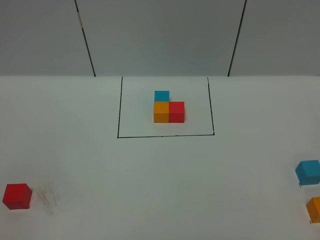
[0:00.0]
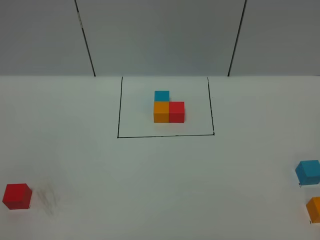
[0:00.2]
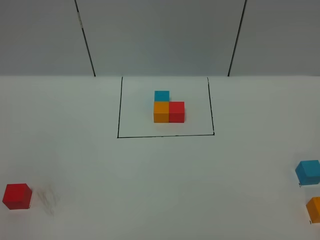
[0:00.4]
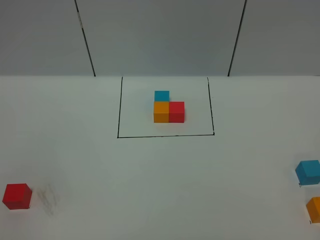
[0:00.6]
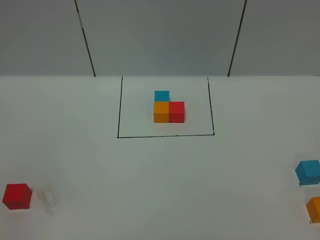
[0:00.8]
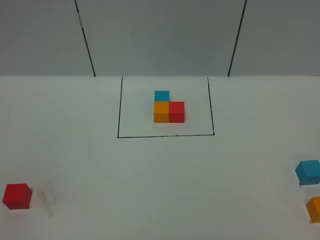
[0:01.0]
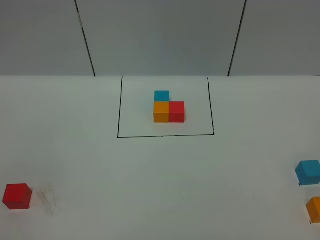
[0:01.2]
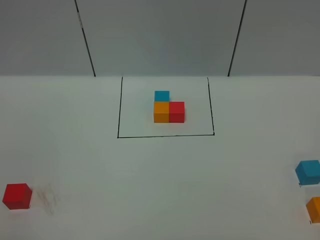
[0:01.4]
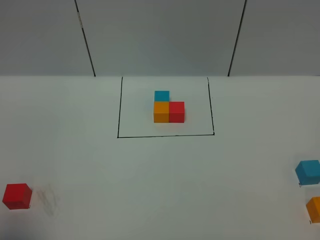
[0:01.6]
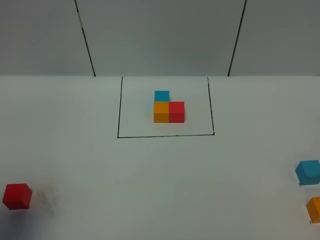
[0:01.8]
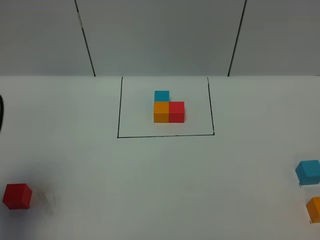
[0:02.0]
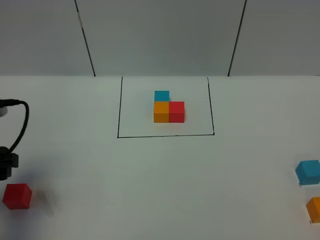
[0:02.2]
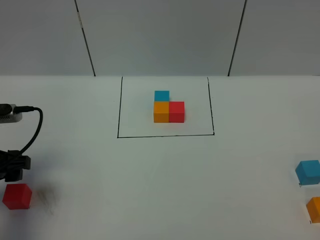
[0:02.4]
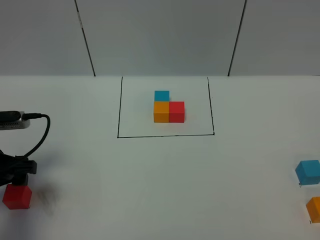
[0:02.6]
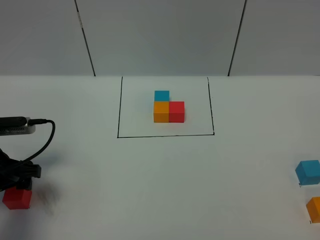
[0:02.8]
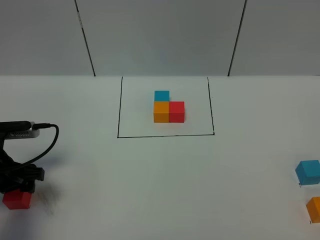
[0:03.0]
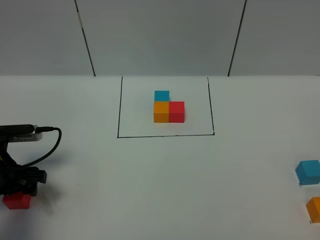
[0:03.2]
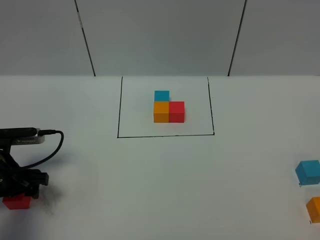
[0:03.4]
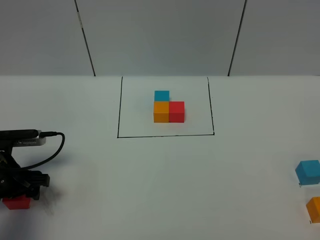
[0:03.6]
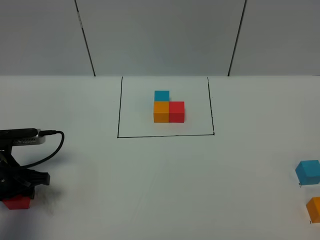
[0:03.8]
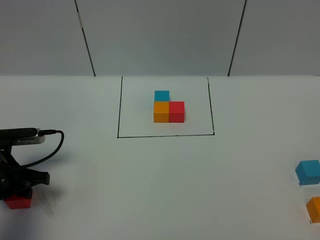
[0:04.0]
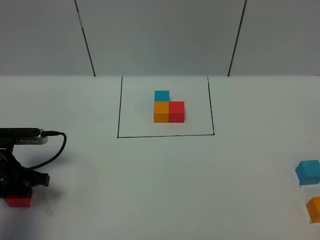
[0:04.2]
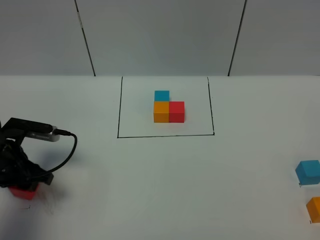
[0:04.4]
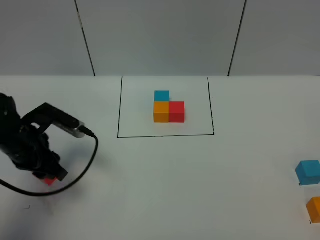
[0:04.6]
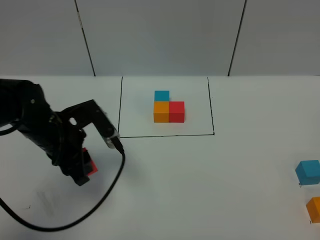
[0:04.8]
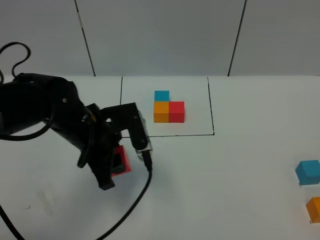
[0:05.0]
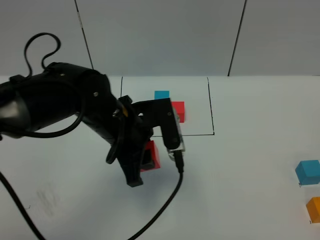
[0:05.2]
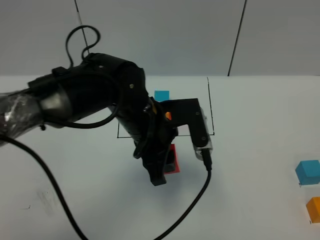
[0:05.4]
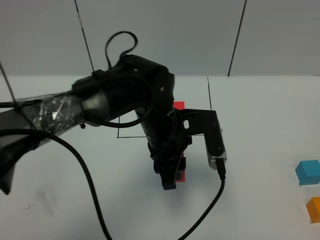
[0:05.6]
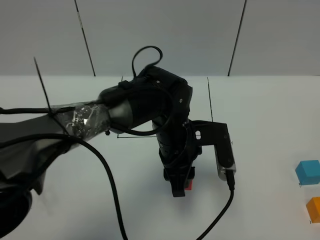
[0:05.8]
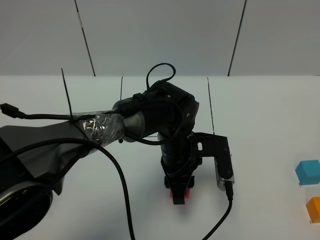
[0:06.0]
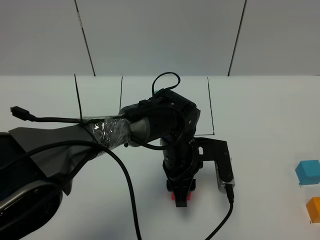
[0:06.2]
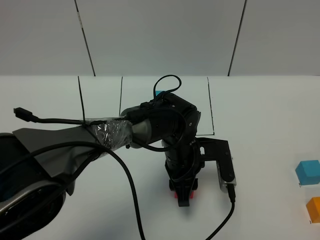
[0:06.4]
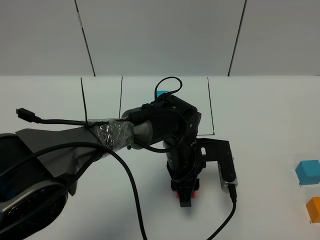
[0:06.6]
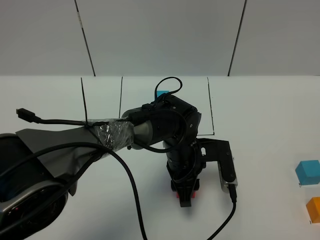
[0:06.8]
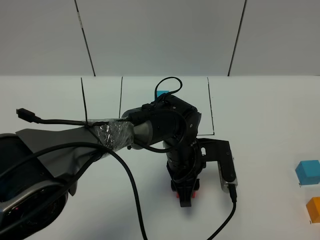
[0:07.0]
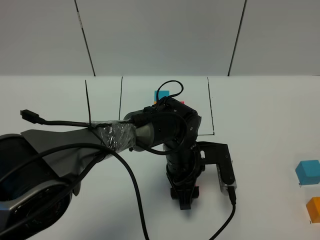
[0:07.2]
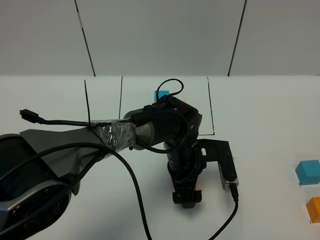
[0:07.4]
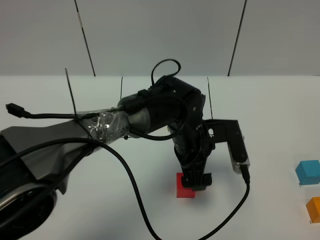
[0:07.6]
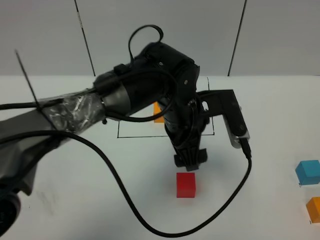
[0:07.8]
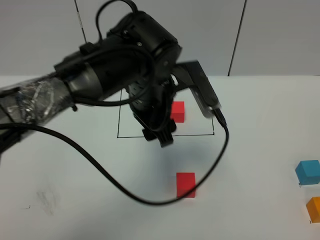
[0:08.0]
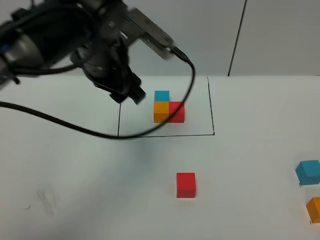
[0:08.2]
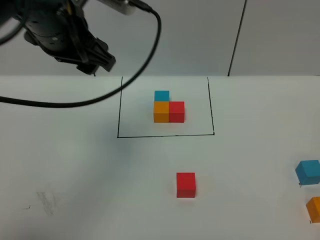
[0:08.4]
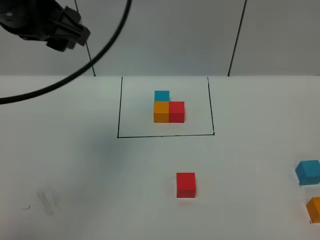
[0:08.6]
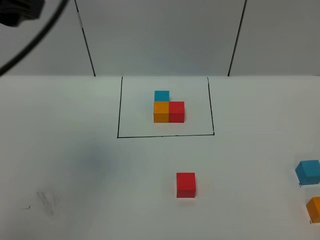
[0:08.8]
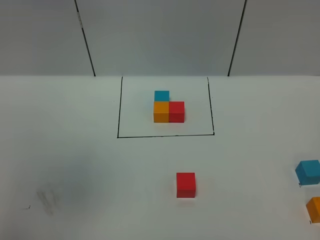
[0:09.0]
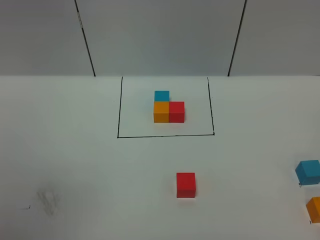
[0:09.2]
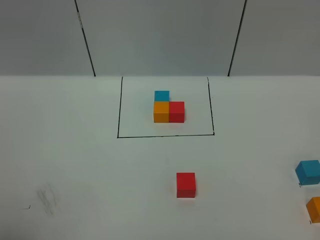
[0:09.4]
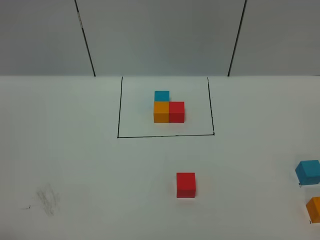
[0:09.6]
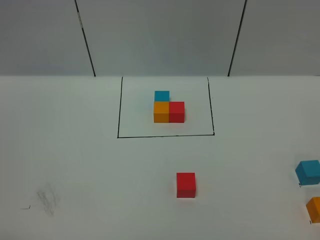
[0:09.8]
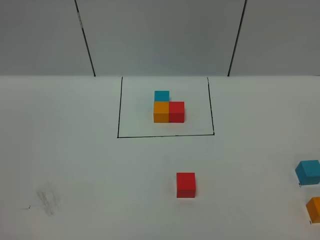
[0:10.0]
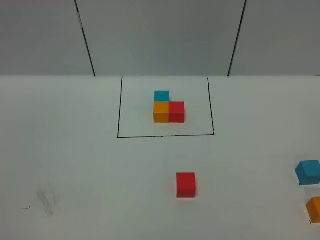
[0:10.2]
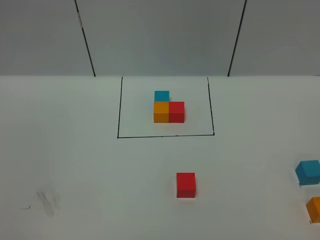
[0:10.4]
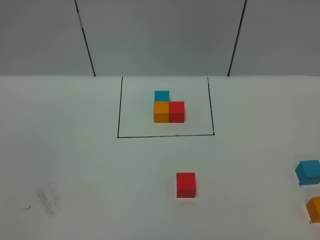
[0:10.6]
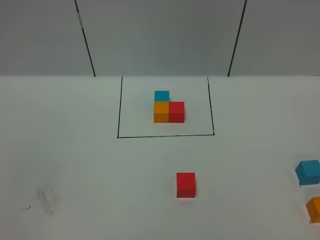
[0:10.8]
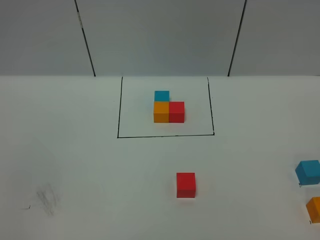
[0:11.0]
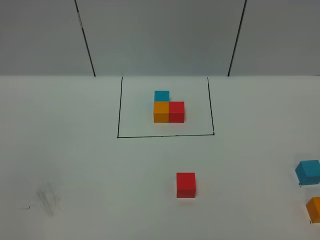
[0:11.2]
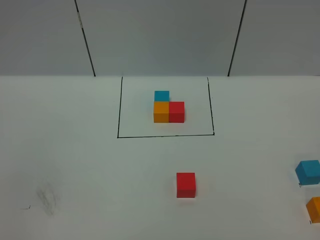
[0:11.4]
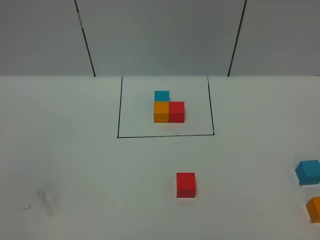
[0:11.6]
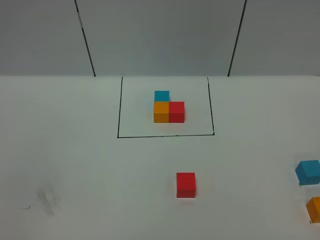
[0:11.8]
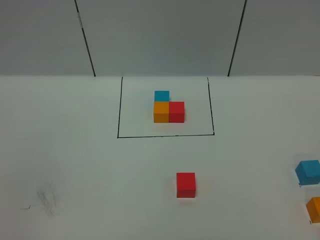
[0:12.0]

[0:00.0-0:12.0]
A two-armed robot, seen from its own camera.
Task of the whole recording: According to the building block template in front, assemble the scattered blocks together.
Step, 0:02.0 to 0:07.8: Put the red cube in the center of the table.
0:01.6 to 0:03.0: The left gripper is displaced forward and downward by roughly 25 cm.
0:03.0 to 0:04.4: The left gripper closes.
0:04.4 to 0:06.0: The left gripper goes approximately 30 cm to the right.
0:06.0 to 0:07.6: The left gripper opens its fingers.
0:07.6 to 0:09.0: The left gripper travels upward, to the left and backward by about 50 cm.
0:09.0 to 0:10.4: The left gripper shifts roughly 30 cm backward and downward.

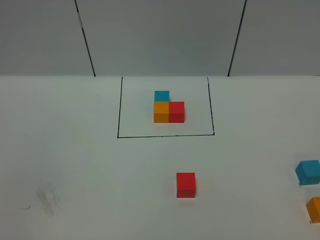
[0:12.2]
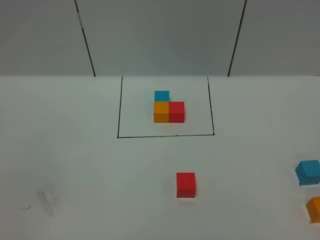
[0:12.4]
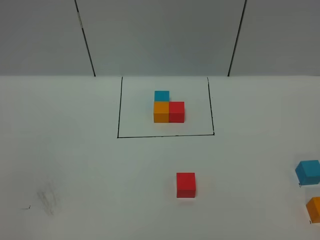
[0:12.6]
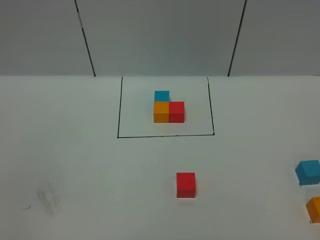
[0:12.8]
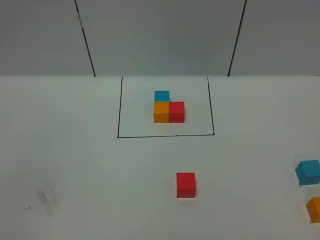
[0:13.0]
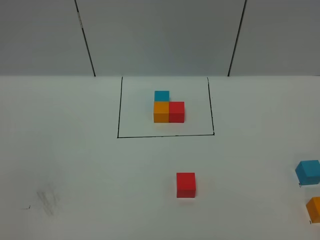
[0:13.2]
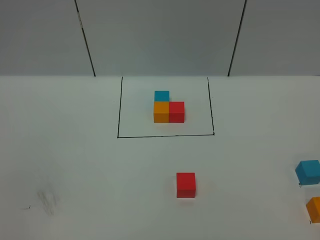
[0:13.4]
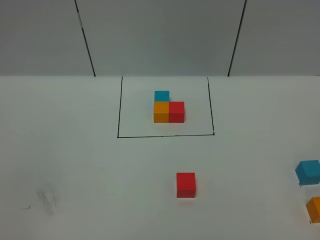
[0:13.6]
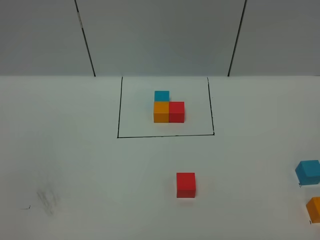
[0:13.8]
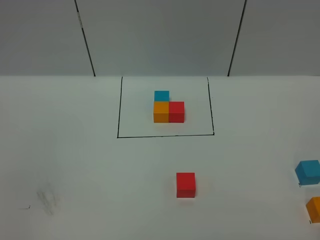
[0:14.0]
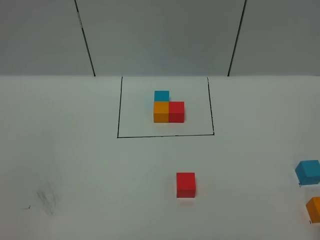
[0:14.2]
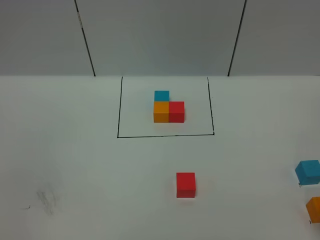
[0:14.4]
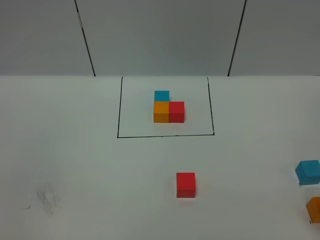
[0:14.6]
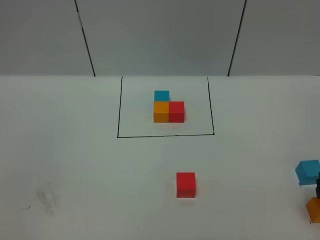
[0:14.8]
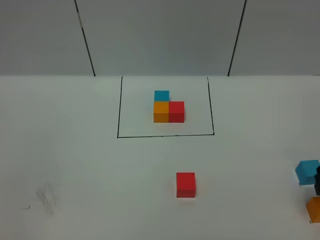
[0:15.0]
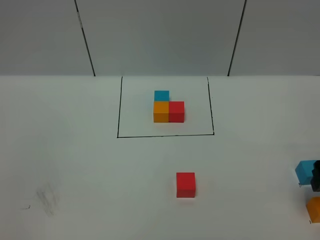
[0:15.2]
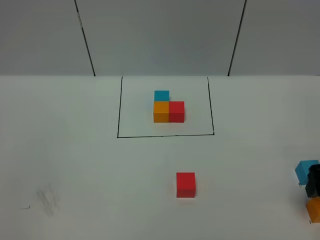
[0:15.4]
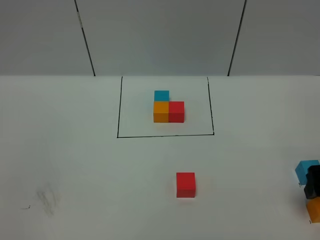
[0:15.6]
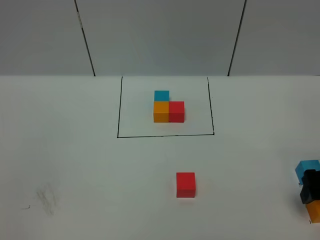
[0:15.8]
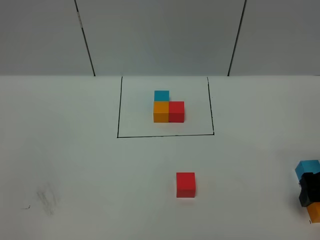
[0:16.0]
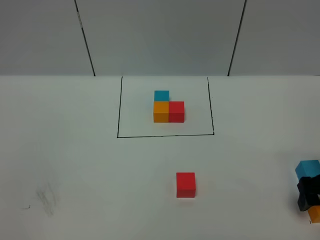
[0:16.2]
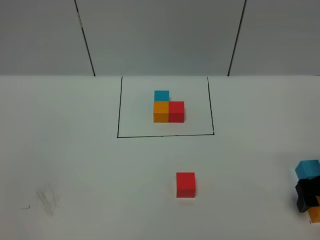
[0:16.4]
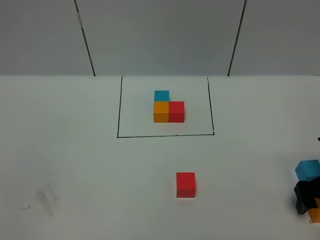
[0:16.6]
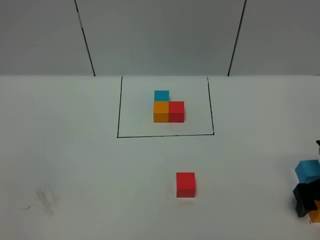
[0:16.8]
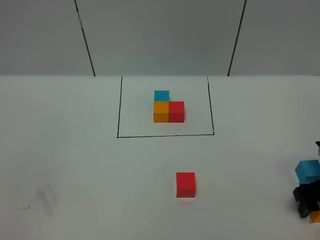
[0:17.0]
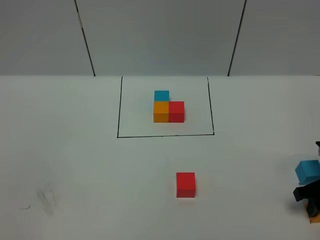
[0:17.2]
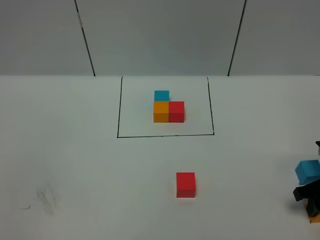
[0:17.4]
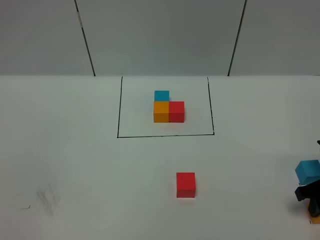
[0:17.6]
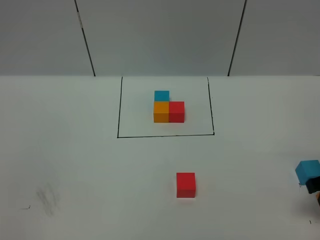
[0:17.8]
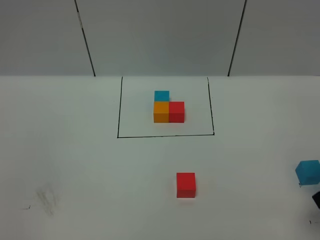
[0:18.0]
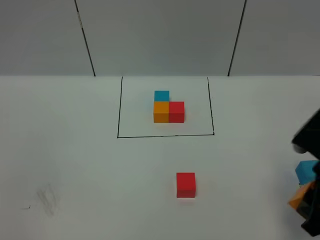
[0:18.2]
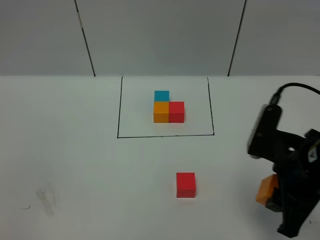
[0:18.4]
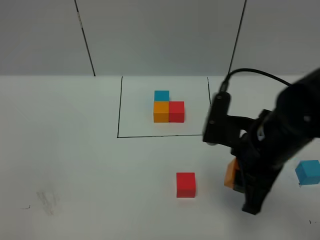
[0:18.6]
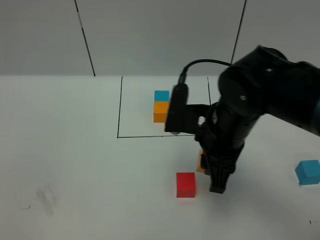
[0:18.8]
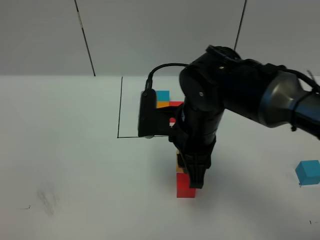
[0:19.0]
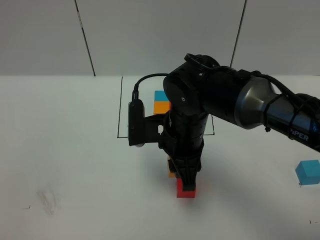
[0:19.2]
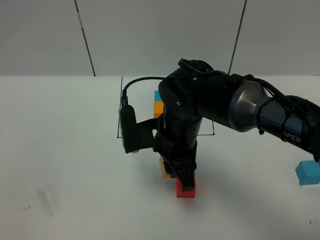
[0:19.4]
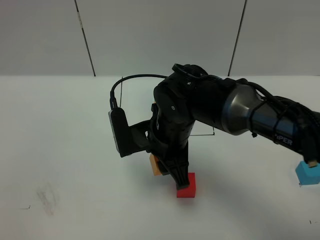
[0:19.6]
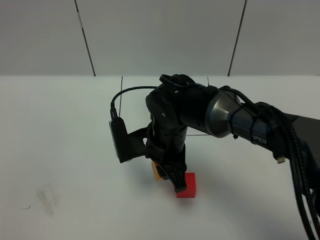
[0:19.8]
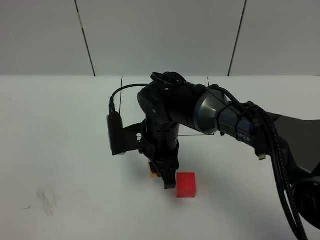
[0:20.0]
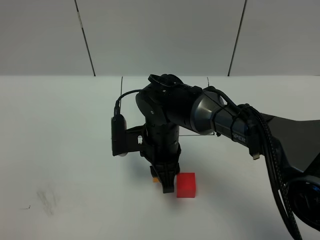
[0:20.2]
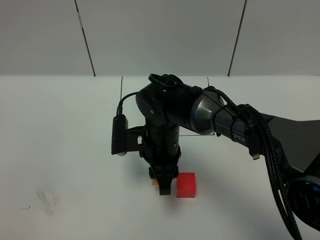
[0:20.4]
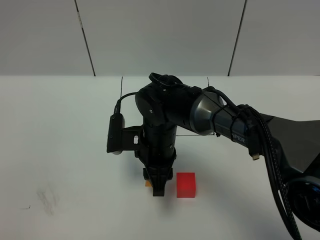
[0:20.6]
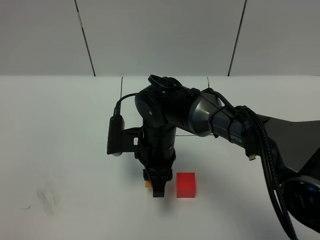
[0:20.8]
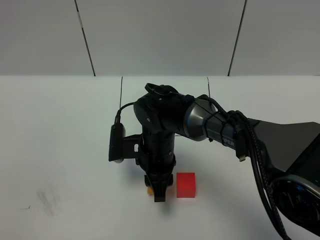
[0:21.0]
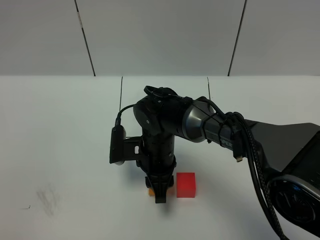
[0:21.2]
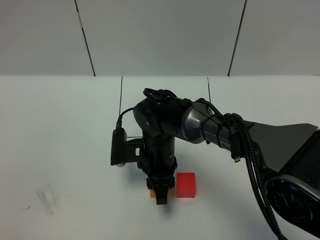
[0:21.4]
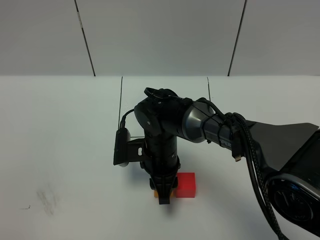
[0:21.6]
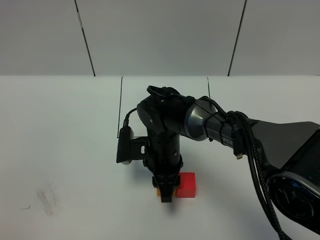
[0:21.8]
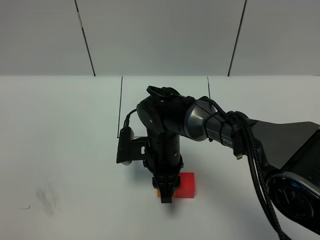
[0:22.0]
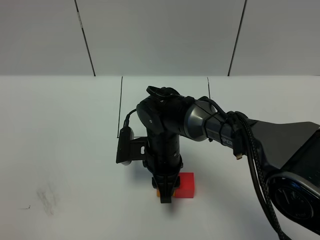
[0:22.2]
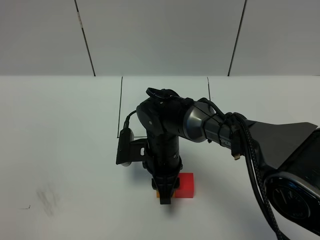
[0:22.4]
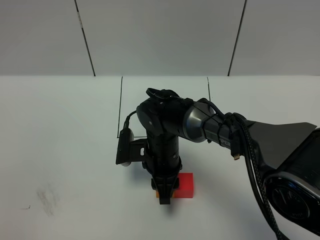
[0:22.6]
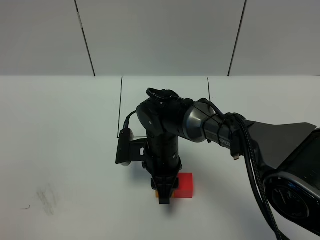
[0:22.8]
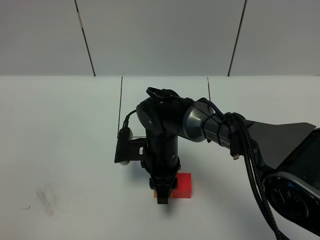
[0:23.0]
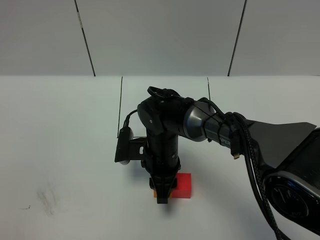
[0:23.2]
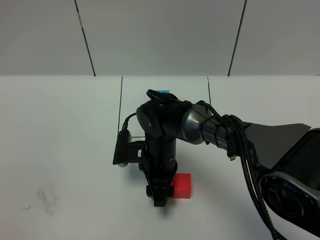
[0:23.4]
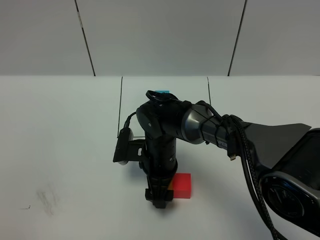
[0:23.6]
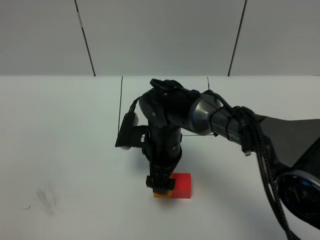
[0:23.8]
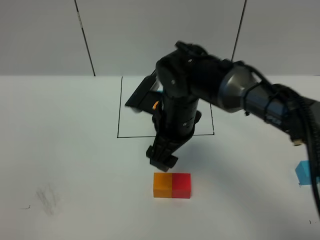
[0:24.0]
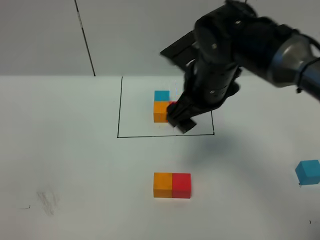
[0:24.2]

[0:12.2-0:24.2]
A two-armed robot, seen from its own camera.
Task of the whole recording: According to the building block template in front, assemble the scattered blocks together.
0:13.8 to 0:15.2: The right gripper shifts some 20 cm forward.
0:15.2 to 0:16.6: The right gripper heads downward, covering roughly 10 cm.
0:16.6 to 0:18.2: The right gripper goes some 15 cm upward, to the left and backward, and closes.
0:18.2 to 0:19.8: The right gripper moves to the left and forward, about 25 cm.
0:19.8 to 0:21.2: The right gripper ends up roughly 5 cm from where it was.
0:21.2 to 0:22.6: The two grippers keep their place.
0:22.6 to 0:24.2: The right gripper is displaced upward and to the right by some 20 cm, and opens its fingers.
